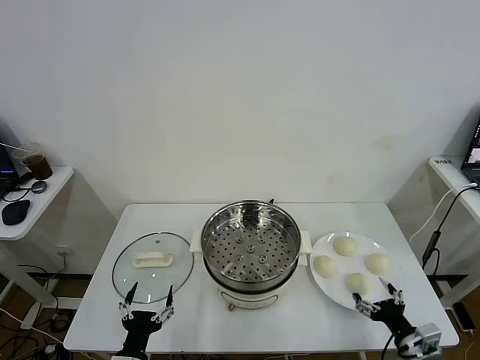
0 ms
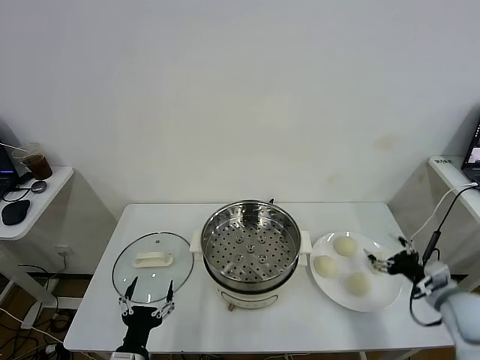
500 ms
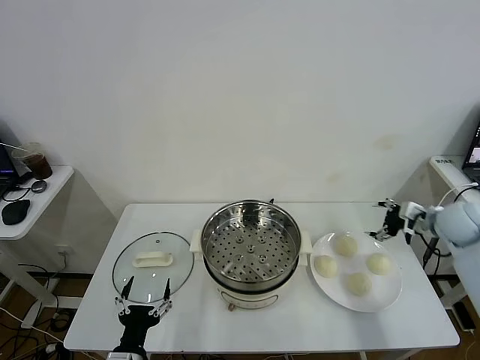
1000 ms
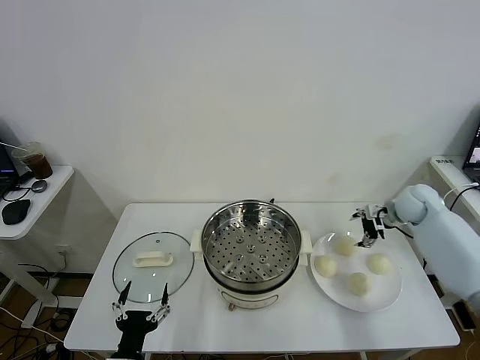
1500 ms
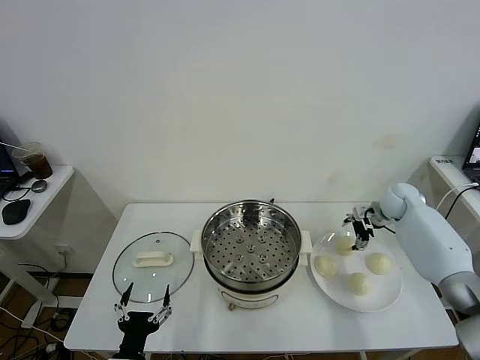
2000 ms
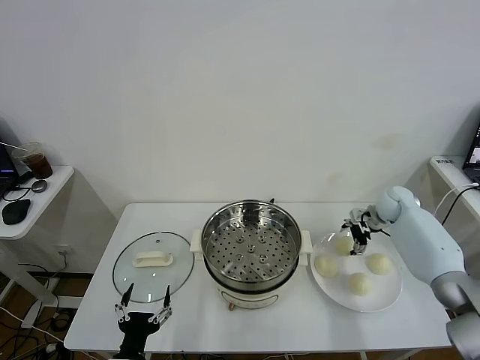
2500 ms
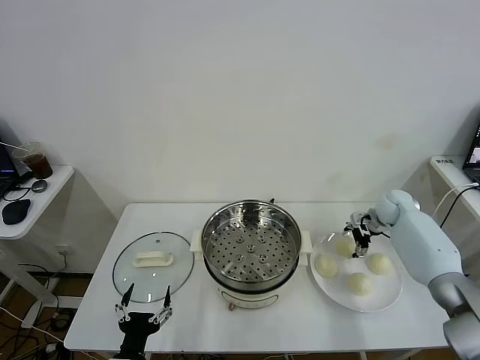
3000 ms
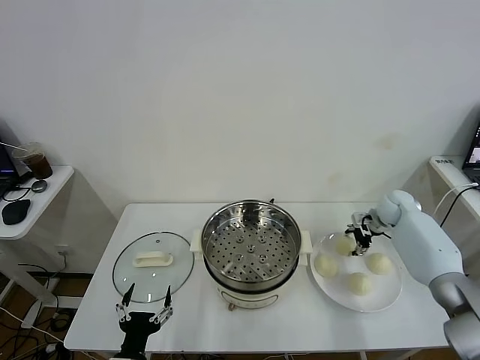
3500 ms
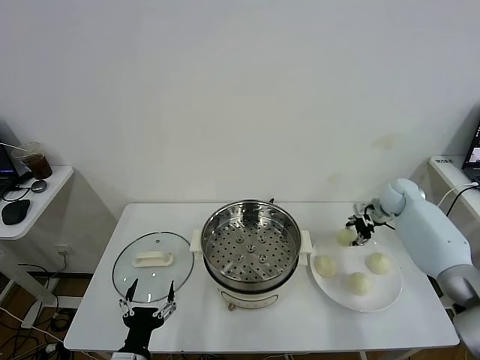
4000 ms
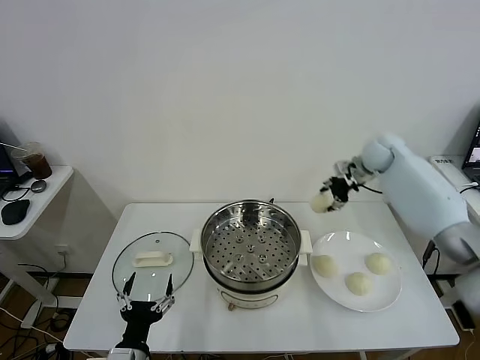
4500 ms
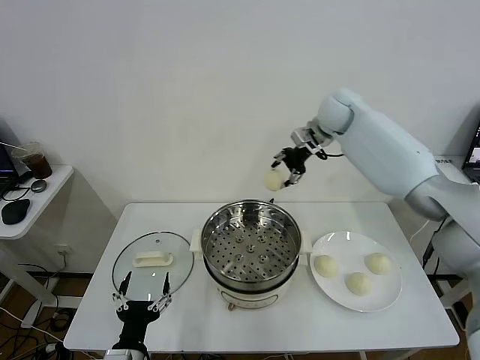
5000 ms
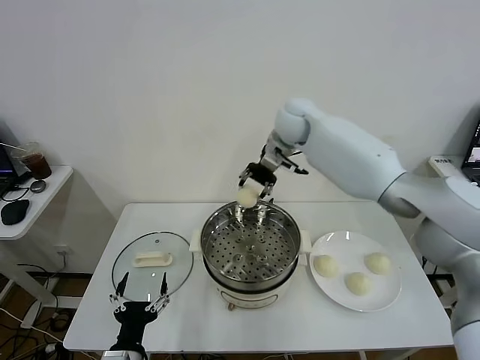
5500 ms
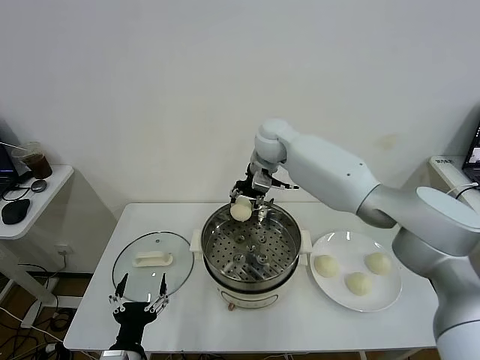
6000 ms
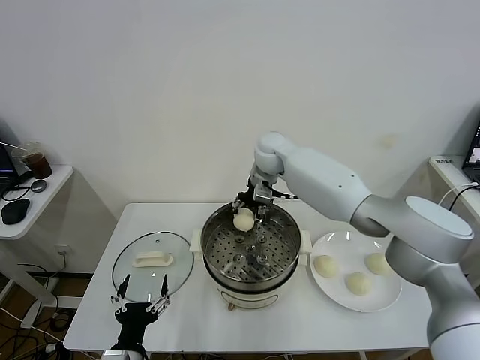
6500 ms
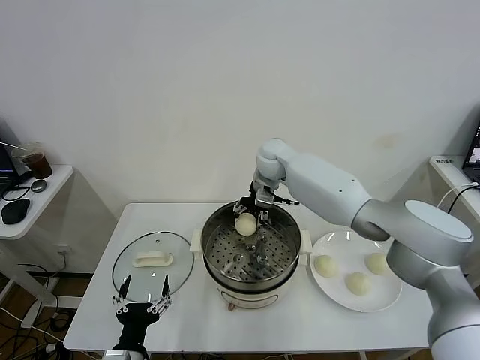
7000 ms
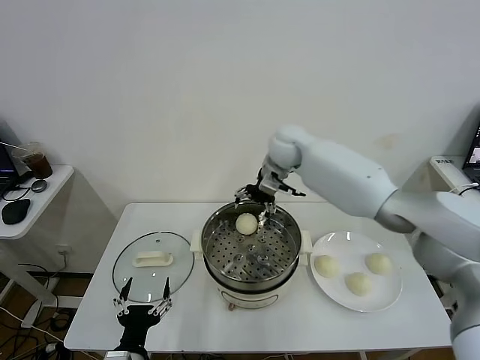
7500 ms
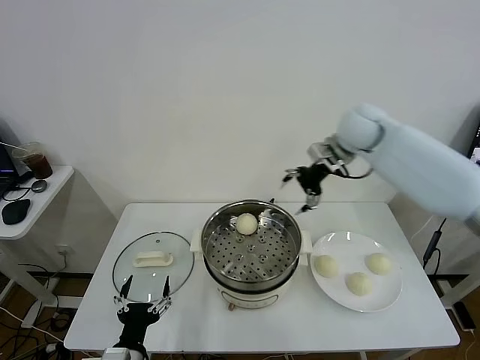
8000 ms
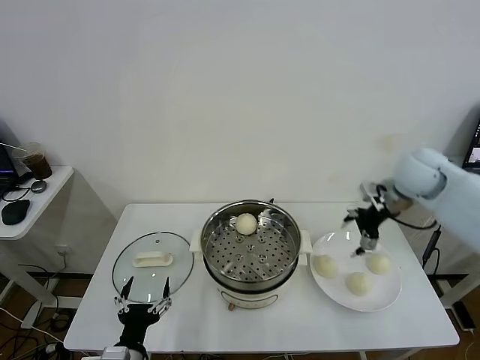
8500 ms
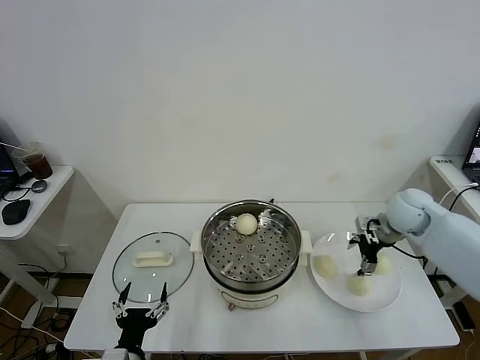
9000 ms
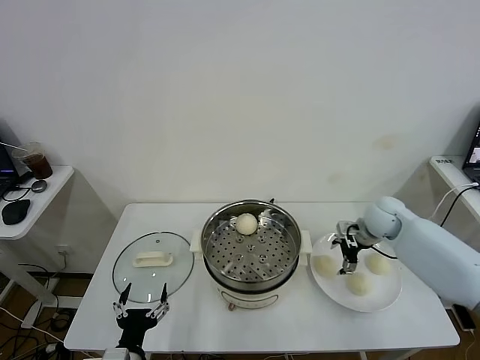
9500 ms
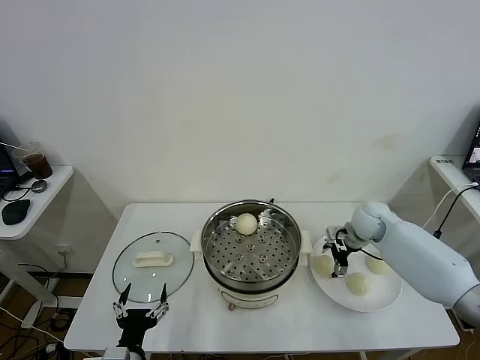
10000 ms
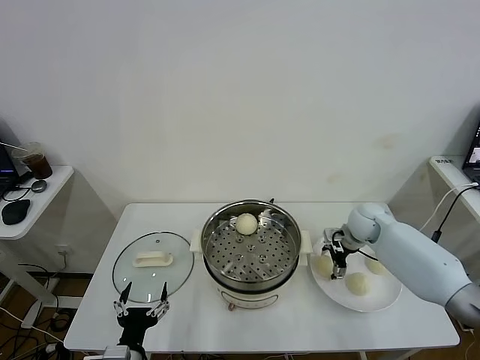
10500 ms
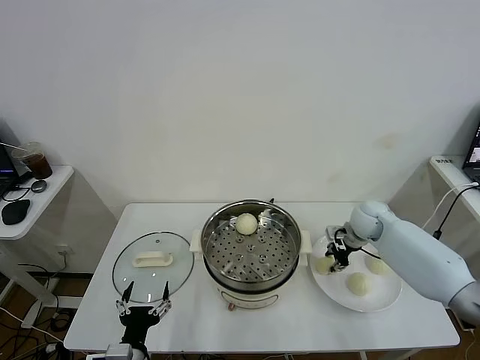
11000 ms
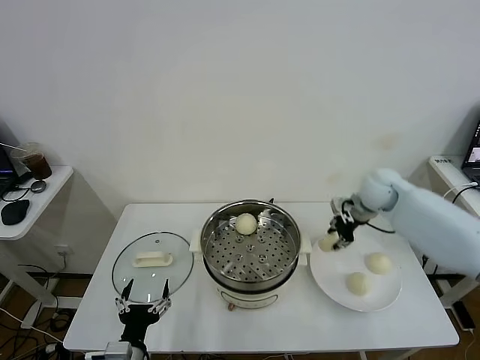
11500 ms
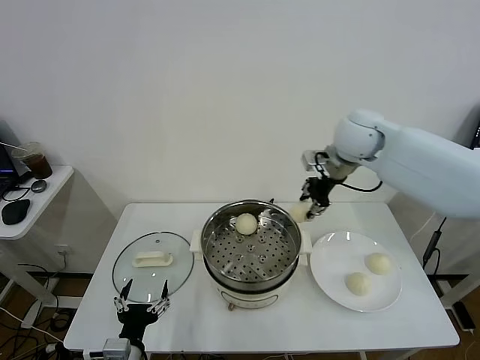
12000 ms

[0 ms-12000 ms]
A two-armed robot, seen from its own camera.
Task of the whole recording: take steamed baozi put them in steamer.
Step, 0 ms to 3500 ms: Grasp the baozi in the plate with right gripper.
Step, 4000 ms to 7000 ms: Place the baozi on the steamer with right gripper.
Step, 7500 ms to 11000 ms: Grasp the baozi in the plate with right gripper.
2000 ms to 4000 ms: The right gripper closes up.
4000 ms to 6000 ms: The right gripper moves to the left and upward, roughly 40 cm.
6000 ms to 8000 ms: The right gripper moves to the right, about 20 cm, and opens.
8000 ms to 10000 ms: The right gripper shifts roughly 25 cm downward.
10000 ms to 12000 ms: The right gripper travels upward and to the left by approximately 25 cm, and closes its fingers.

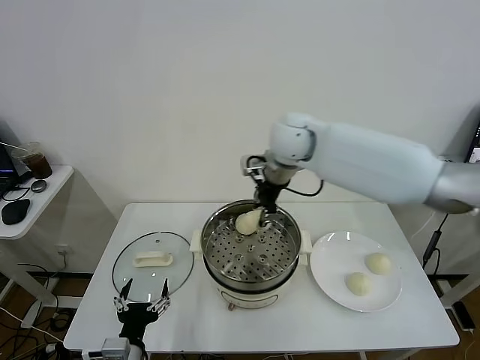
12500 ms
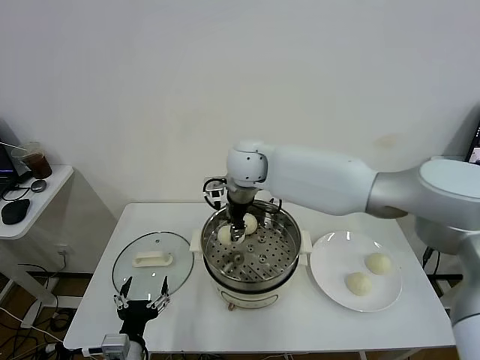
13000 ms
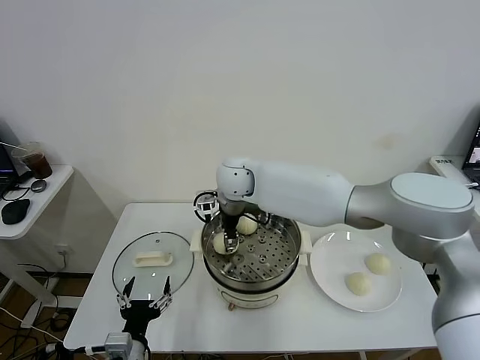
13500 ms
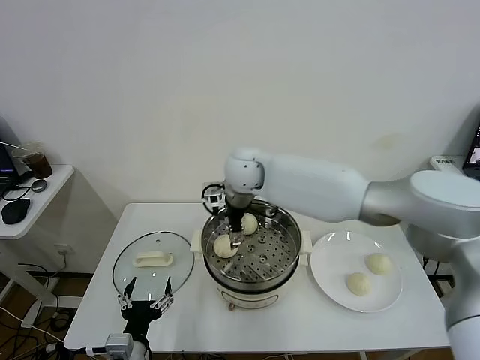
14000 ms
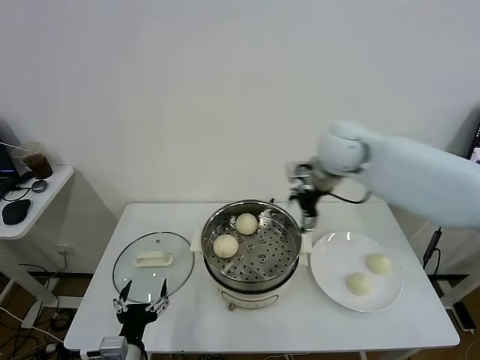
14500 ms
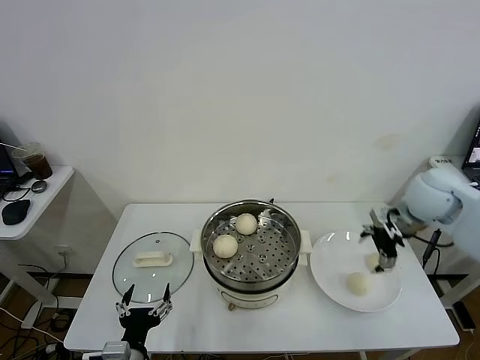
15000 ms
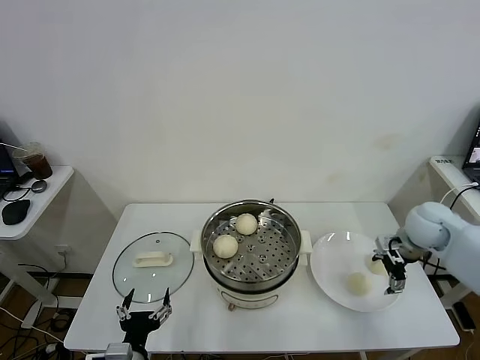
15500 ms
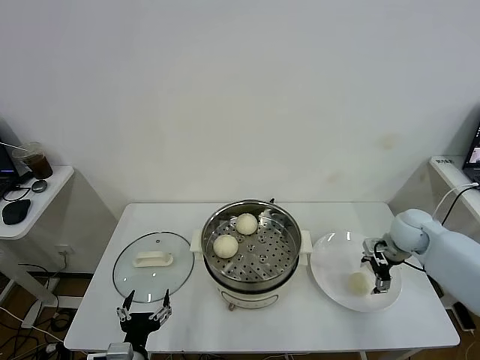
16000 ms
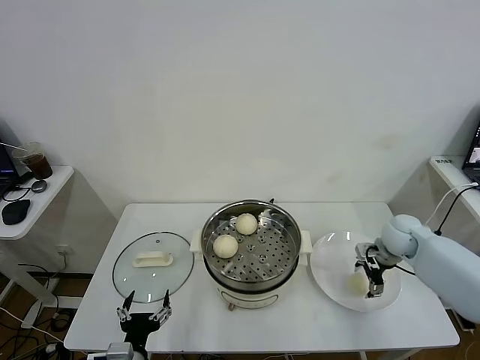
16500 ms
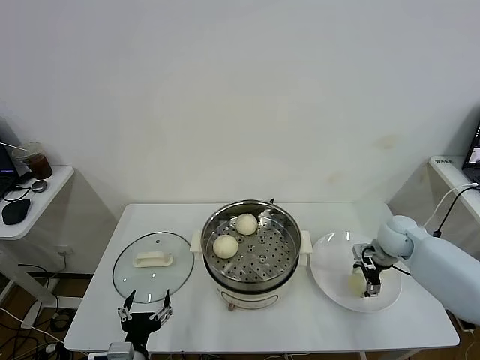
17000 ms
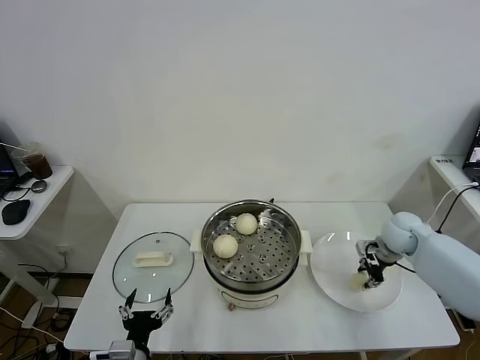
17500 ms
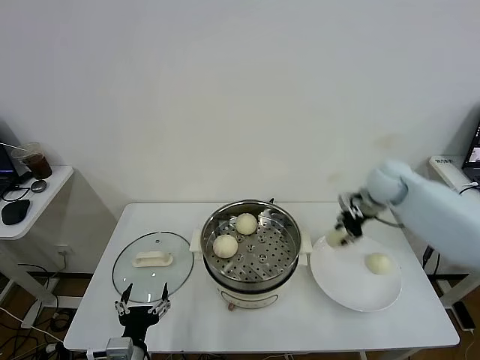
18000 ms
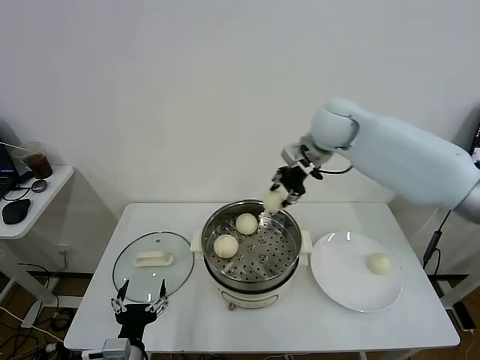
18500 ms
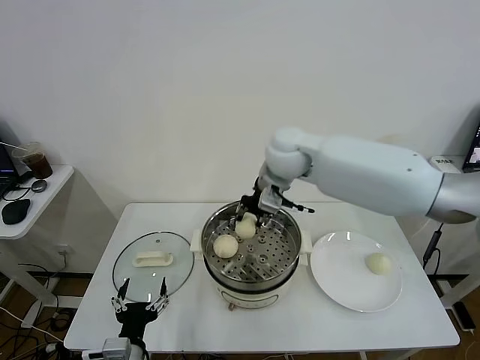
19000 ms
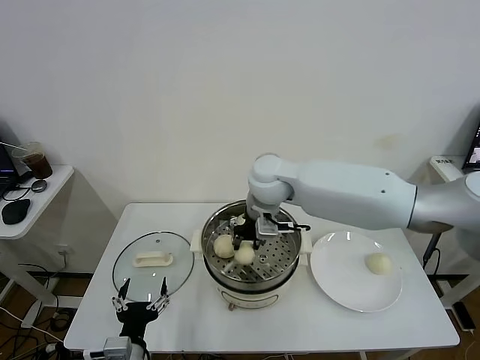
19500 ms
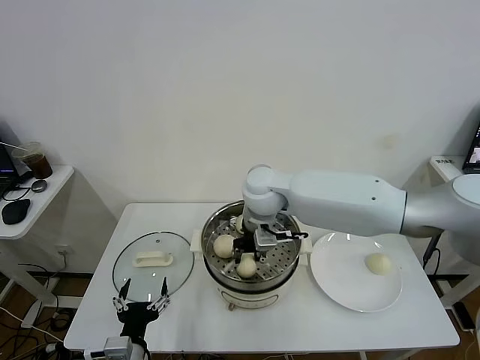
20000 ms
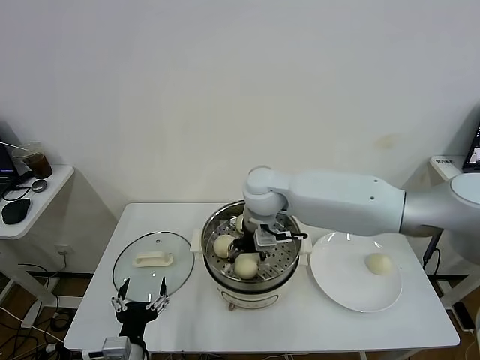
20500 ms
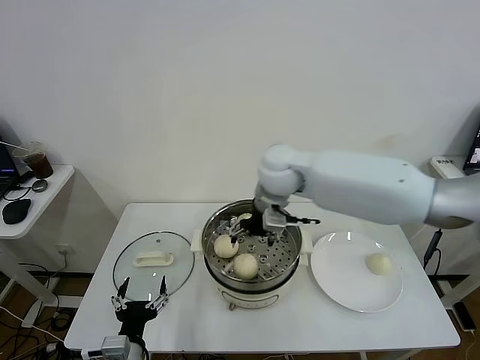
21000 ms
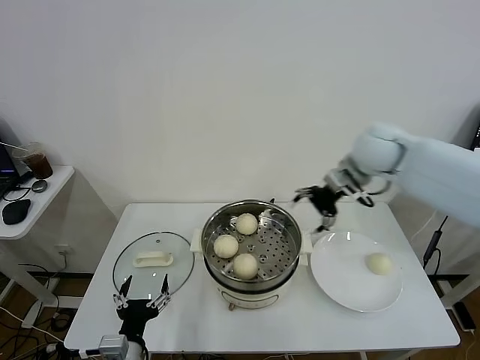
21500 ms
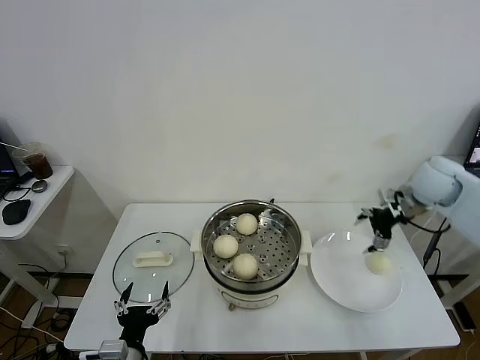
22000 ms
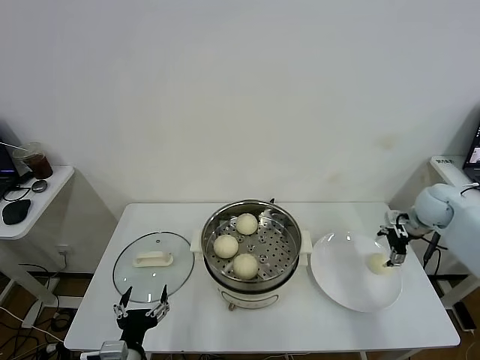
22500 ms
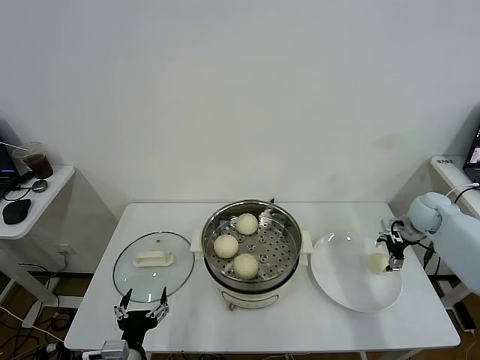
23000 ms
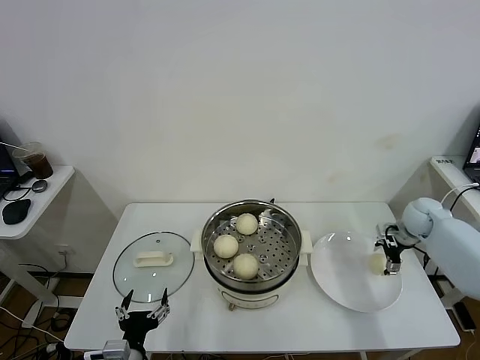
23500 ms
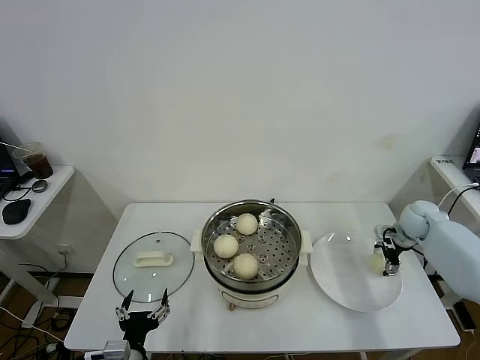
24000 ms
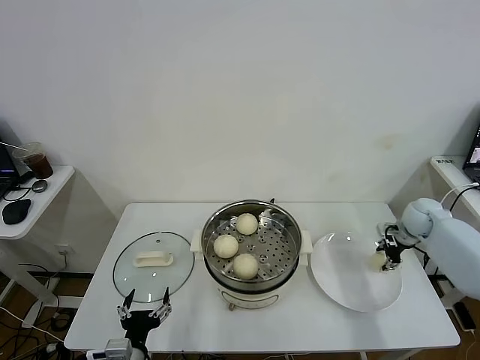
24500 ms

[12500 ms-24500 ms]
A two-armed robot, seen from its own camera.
Task of the whole recording: take steamed baozi put them in steamer.
Step, 14000 ms to 17000 ms: Grasp the baozi in the plate with right gripper.
Step, 17500 ms to 20500 ms: Place the baozi on the steamer with right gripper.
Step, 21000 ms to 24500 ms: Grasp the baozi in the plate with right gripper.
12500 ms to 14500 ms: The right gripper is displaced to the right by about 10 cm, and opens.
14500 ms to 16500 ms: The right gripper is displaced downward and to the right by approximately 30 cm.
16500 ms to 18500 ms: The right gripper heads upward and to the left, covering some 35 cm, and closes its fingers.
18500 ms to 20500 ms: The right gripper is displaced to the left, downward and backward by some 20 cm, and opens its fingers.
20500 ms to 22500 ms: The right gripper goes some 40 cm to the right, and opens.
22500 ms to 24500 ms: The right gripper is displaced downward by roughly 5 cm, and closes.

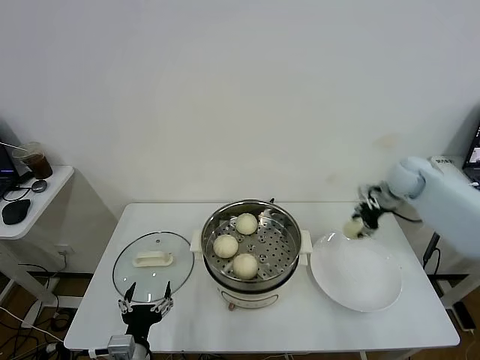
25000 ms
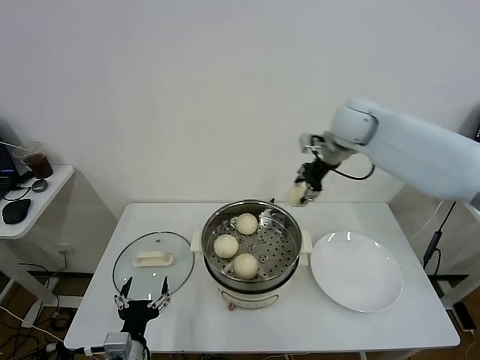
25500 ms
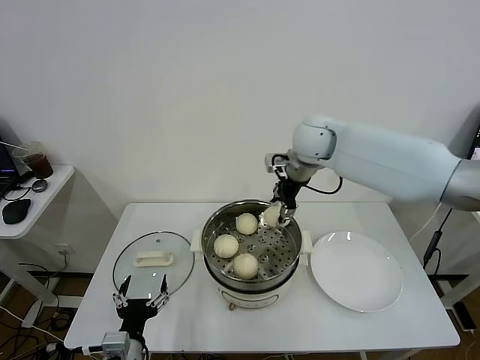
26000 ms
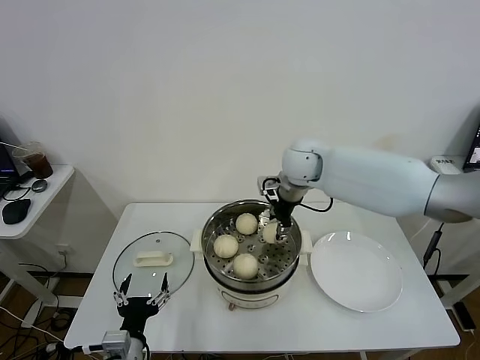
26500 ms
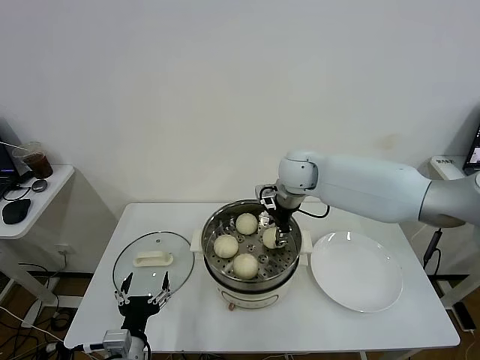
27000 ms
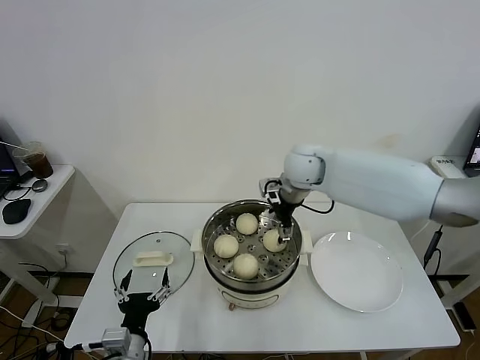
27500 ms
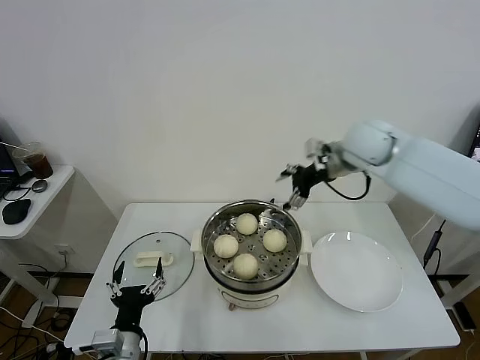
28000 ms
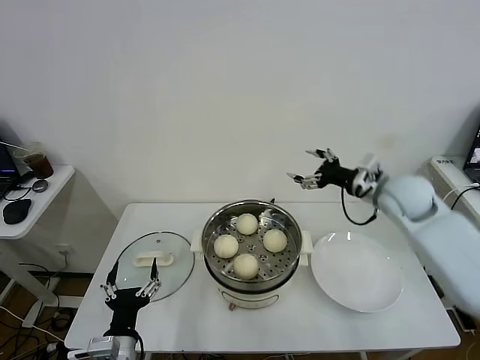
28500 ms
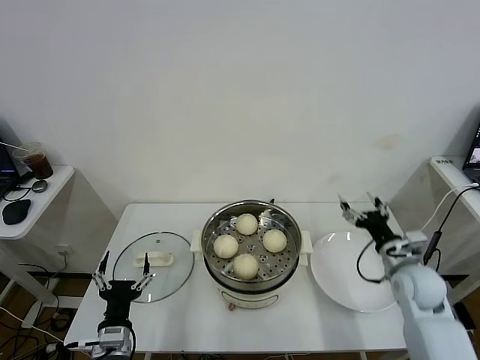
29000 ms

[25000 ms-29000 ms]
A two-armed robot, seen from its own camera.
Task of the whole recording: take steamed baozi put them in steamer.
Step, 25000 ms to 27500 ms: Place the baozi on the steamer with right gripper.
25000 ms to 27000 ms: The right gripper goes some 30 cm to the left.
27000 ms to 29000 ms: The right gripper heads to the right, backward and downward, covering roughly 35 cm, and opens.
